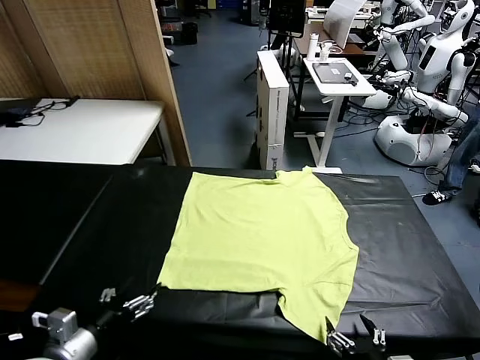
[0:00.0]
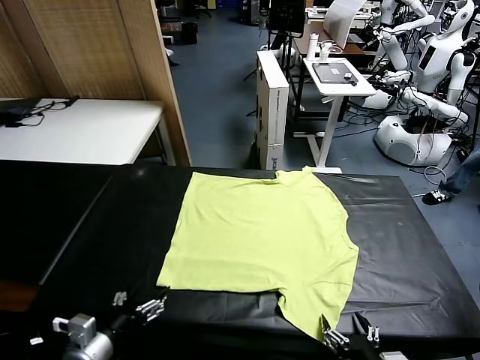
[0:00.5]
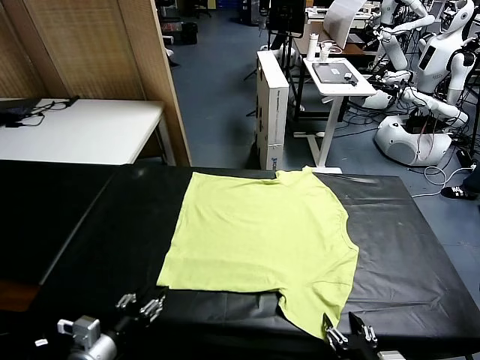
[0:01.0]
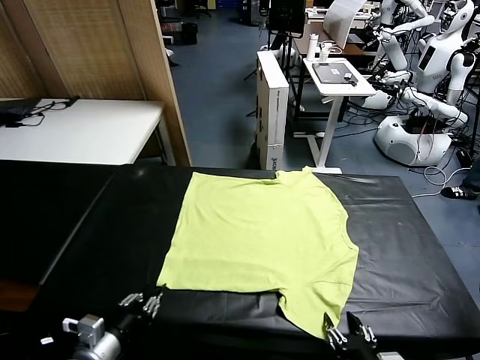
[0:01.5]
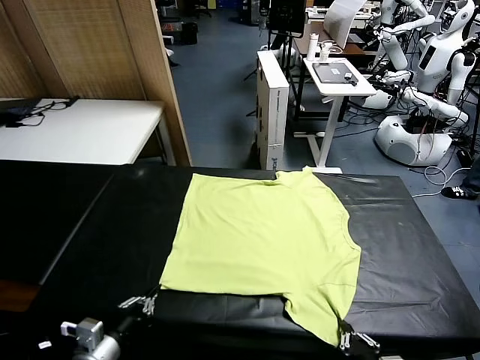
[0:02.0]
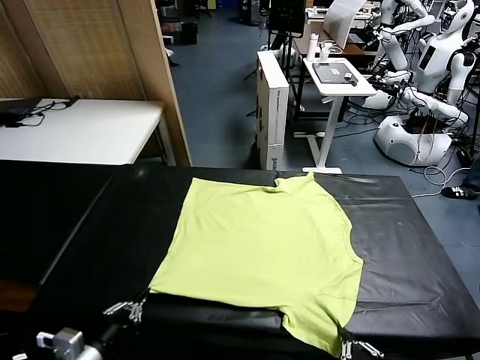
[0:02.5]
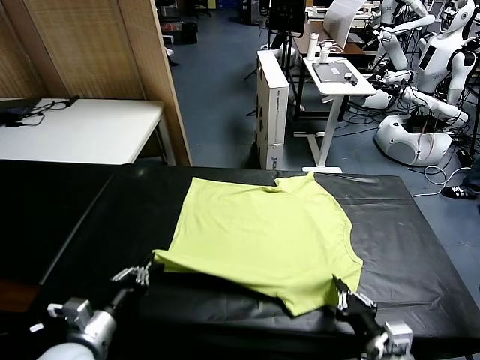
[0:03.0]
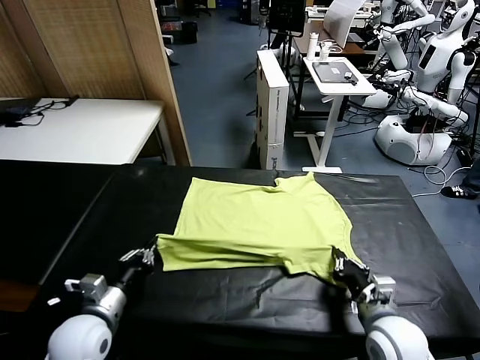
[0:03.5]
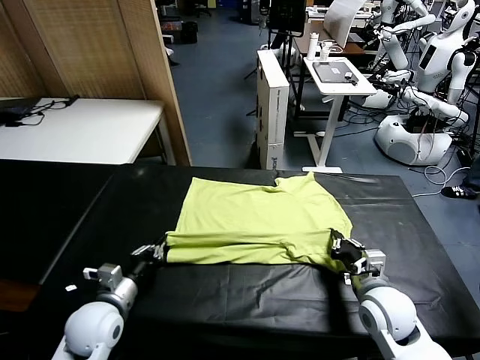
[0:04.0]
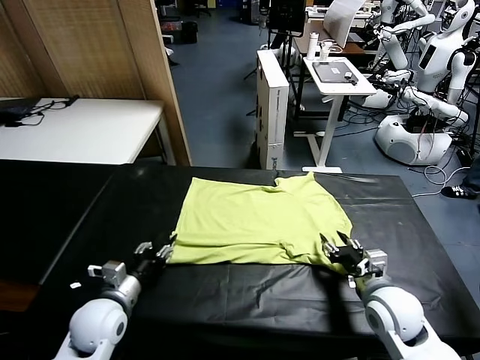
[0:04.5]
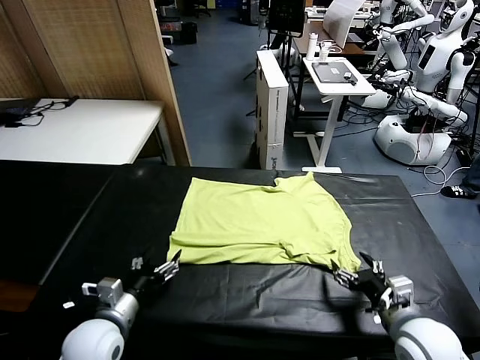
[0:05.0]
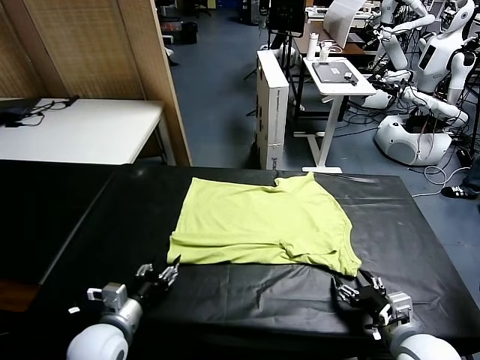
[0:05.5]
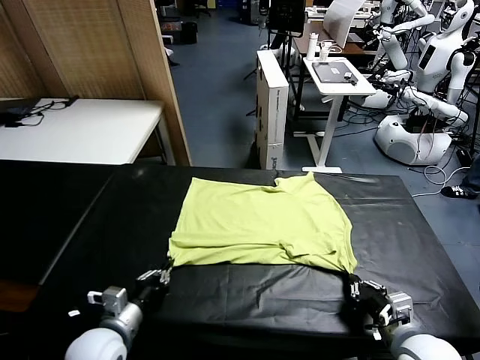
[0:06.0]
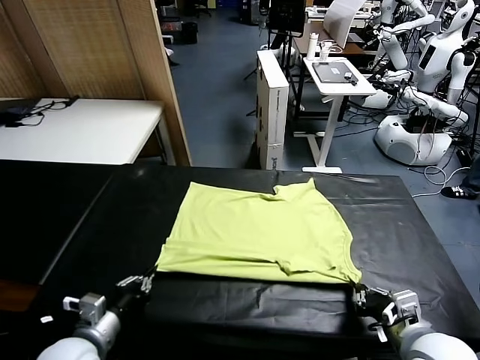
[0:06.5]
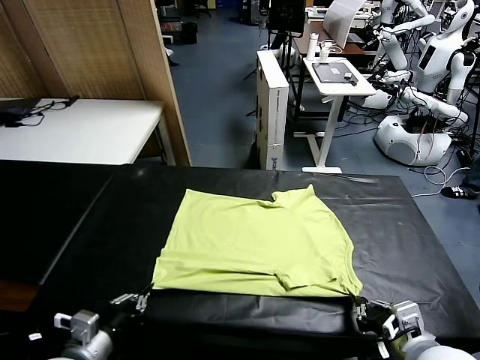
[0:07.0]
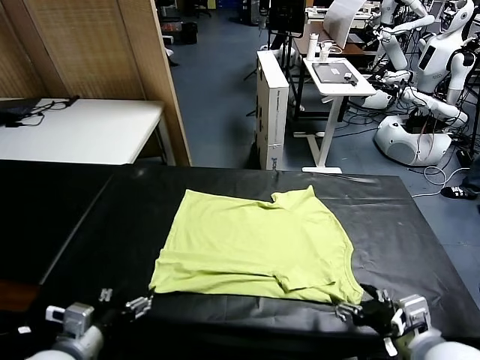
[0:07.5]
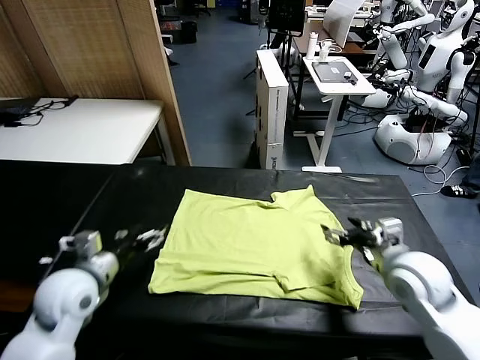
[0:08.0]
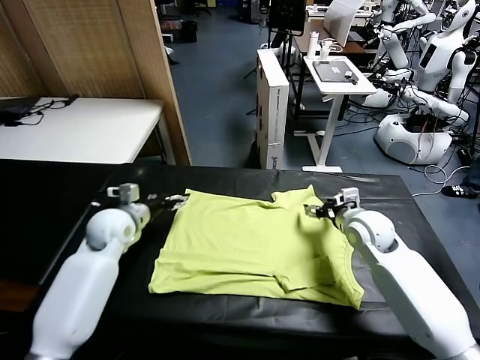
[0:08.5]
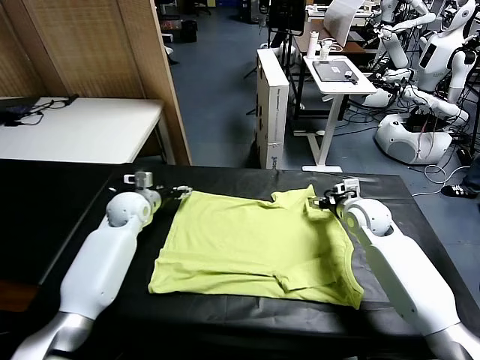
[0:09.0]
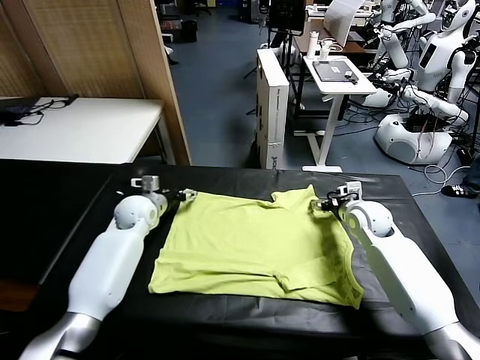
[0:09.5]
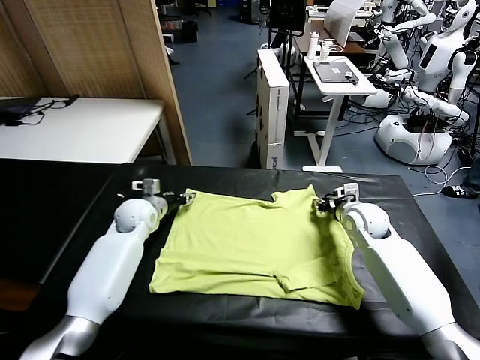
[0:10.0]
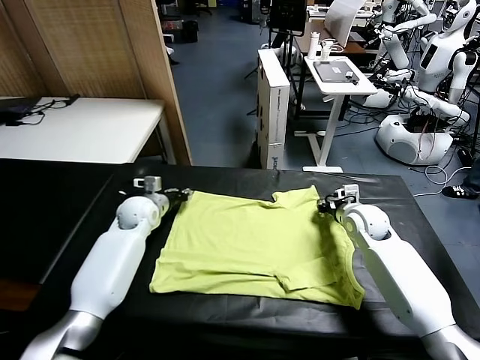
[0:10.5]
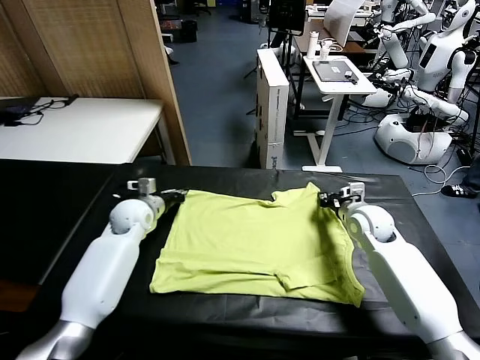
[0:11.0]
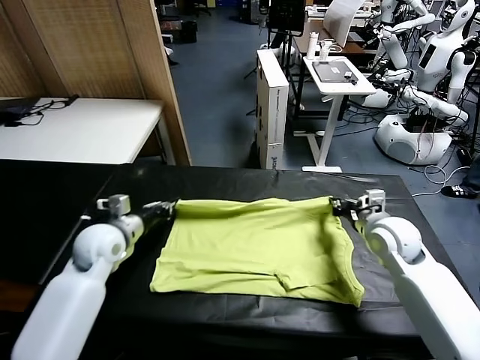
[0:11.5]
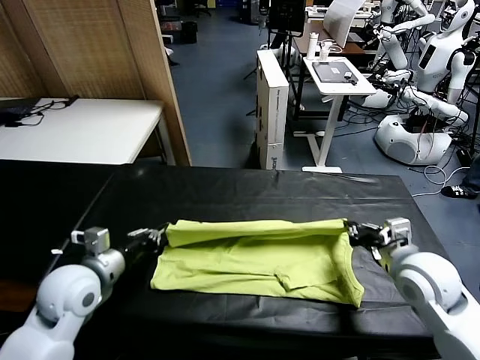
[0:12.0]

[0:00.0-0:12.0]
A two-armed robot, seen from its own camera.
Task of the whole recording: fold and organize the clothes.
Step, 0:00.0 to 0:01.5: use both grippers simultaneously to clamp the lower edge of the clothing fabric.
Step, 0:02.0 to 0:04.5: use both grippers to drag the lower edge of the fabric forward and fold it over the upper edge.
Step, 0:05.0 to 0:07.0: Drag the clothes downward with both gripper.
Step, 0:08.0 to 0:10.5: use both grippers simultaneously to clamp the upper edge of the clothing fabric.
0:02.0 to 0:04.0: The left gripper goes roughly 15 cm forward, while the right gripper moves forward, some 20 cm, and opens.
0:04.0 to 0:06.0: The left gripper travels backward by about 5 cm, and opens, then closes again. The right gripper goes roughly 10 cm backward and upward, and closes.
0:06.0 to 0:08.0: The left gripper shifts about 15 cm forward and upward, and opens, while the right gripper travels forward by about 25 cm, and opens.
0:08.0 to 0:10.0: The left gripper heads forward, covering about 20 cm. The right gripper shifts about 5 cm forward, and closes.
0:10.0 to 0:12.0: Both grippers travel together backward, roughly 25 cm. The left gripper closes its fingers.

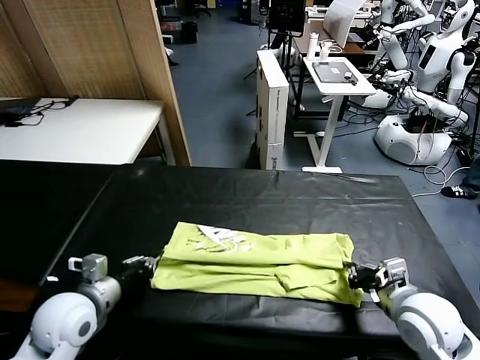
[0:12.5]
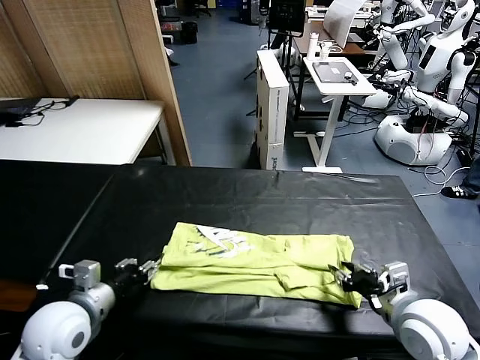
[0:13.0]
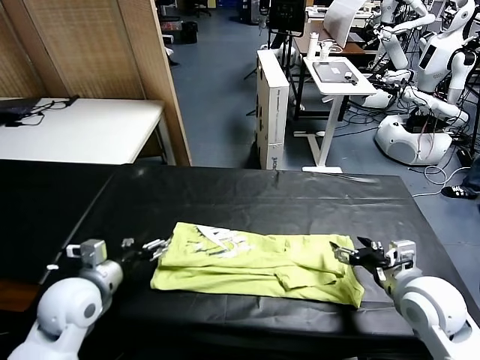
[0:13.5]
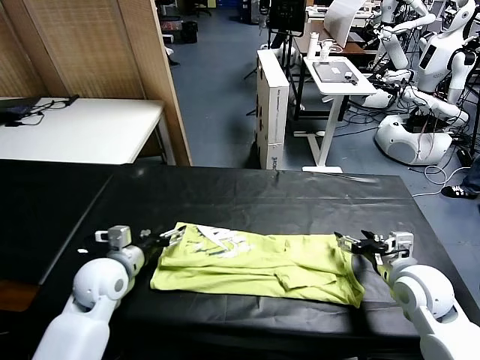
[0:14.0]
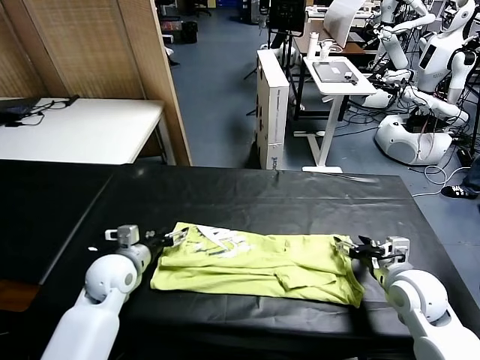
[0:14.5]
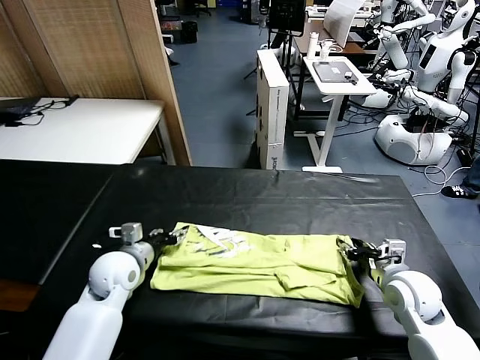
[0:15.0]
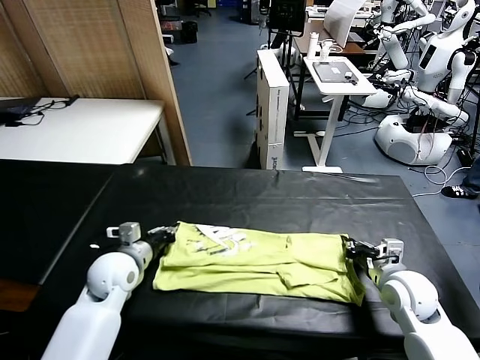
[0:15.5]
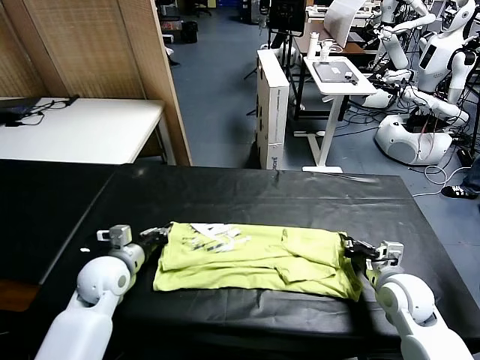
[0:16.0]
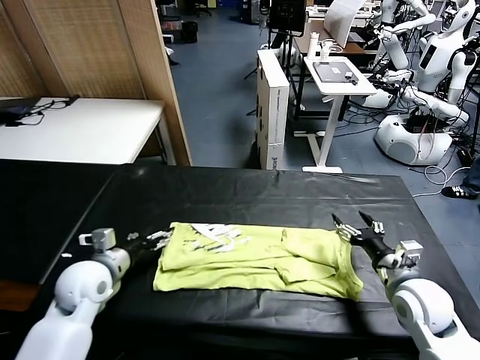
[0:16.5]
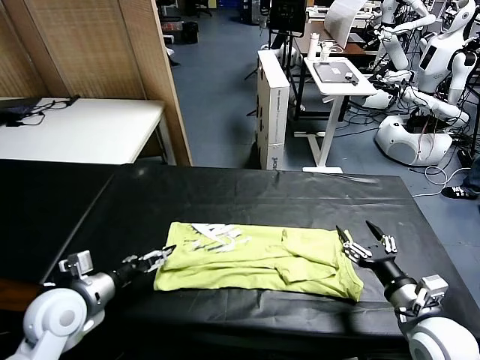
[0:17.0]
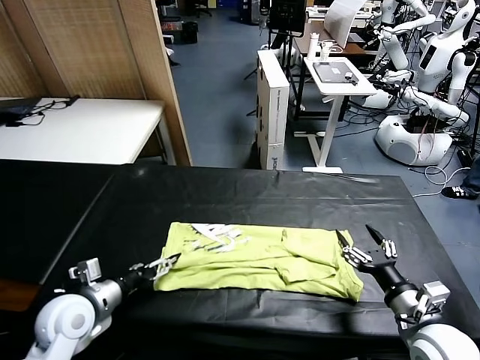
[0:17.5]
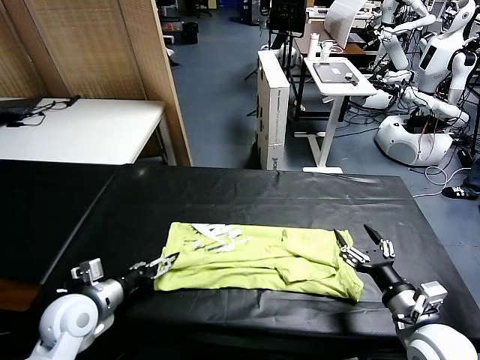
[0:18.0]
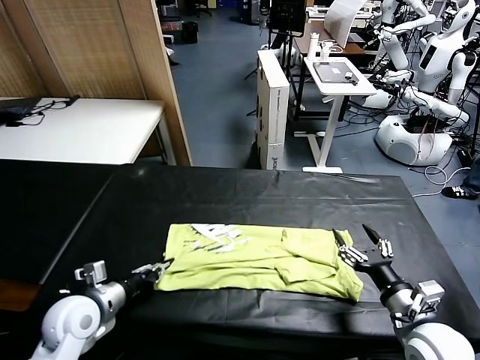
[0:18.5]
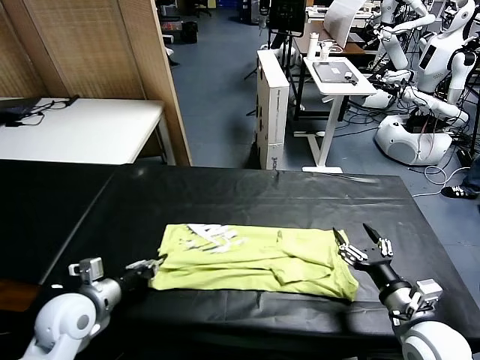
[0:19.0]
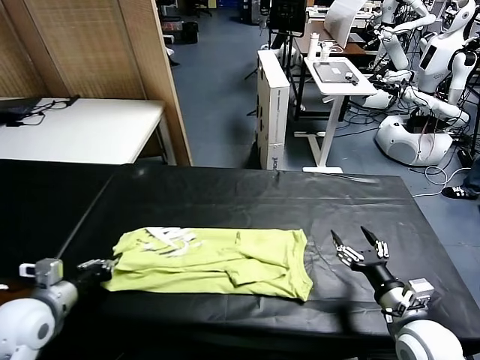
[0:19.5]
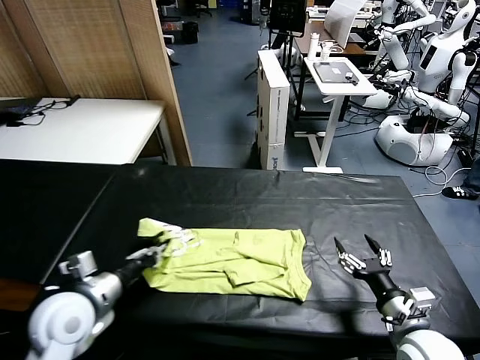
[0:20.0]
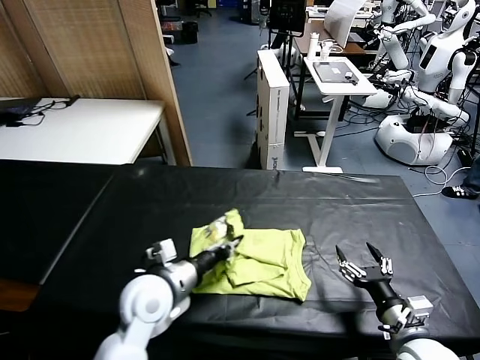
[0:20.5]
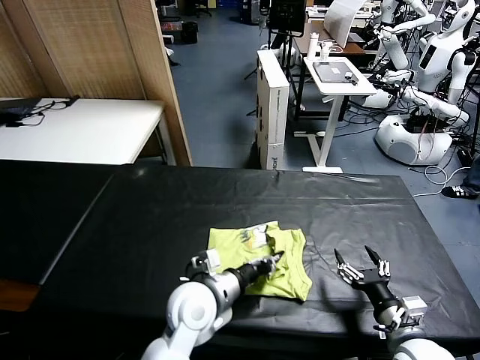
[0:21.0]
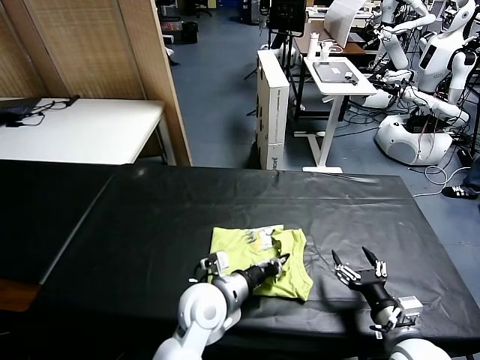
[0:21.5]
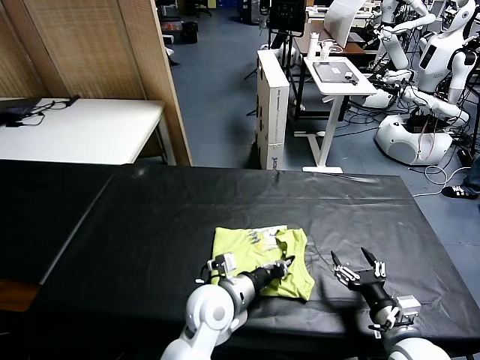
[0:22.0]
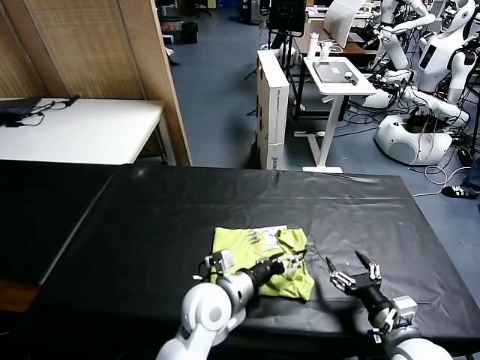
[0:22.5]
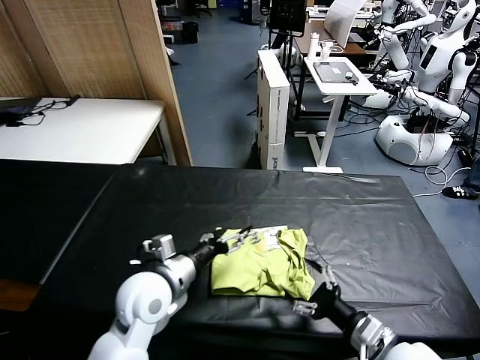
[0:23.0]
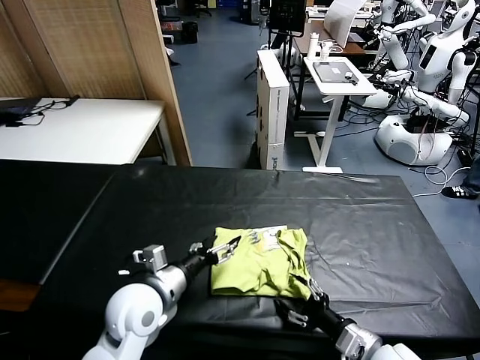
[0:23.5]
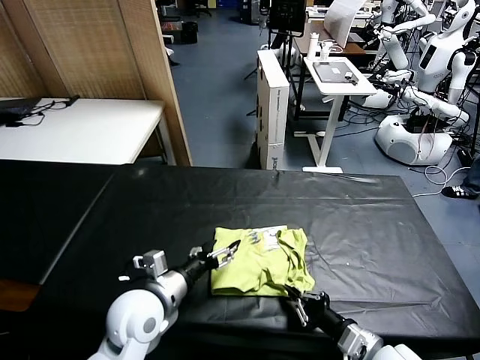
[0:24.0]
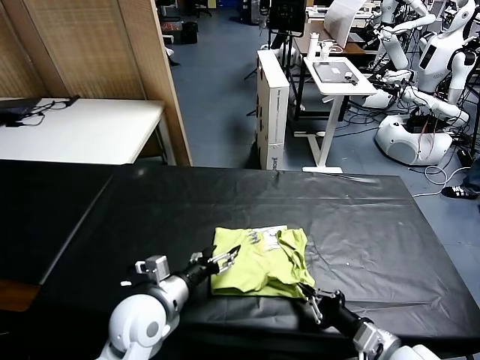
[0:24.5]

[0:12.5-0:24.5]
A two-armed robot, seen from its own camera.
Task of the whole recording: fold and organize the clothes.
Step, 0:13.5 to 0:18.5: use the left gripper to clamp the left edge of the fabric.
Step, 0:19.0 to 0:22.5: use the left gripper to drag the left edge of the fabric to the left and folds it over the right edge.
0:12.5 to 0:14.5: Both grippers move forward, approximately 10 cm. The left gripper opens up; the right gripper opens up.
0:14.5 to 0:16.5: The right gripper is displaced backward by roughly 5 cm, and closes, then opens again. The left gripper ends up some 5 cm from where it was, and closes and opens again.
0:16.5 to 0:18.5: The left gripper ends up about 5 cm from where it was, and closes up.
0:18.5 to 0:20.5: The left gripper heads to the right, covering approximately 15 cm.
0:20.5 to 0:22.5: The left gripper goes approximately 10 cm to the right, and opens its fingers.
0:22.5 to 0:24.5: The left gripper heads to the left, covering some 10 cm. Meanwhile the right gripper closes.

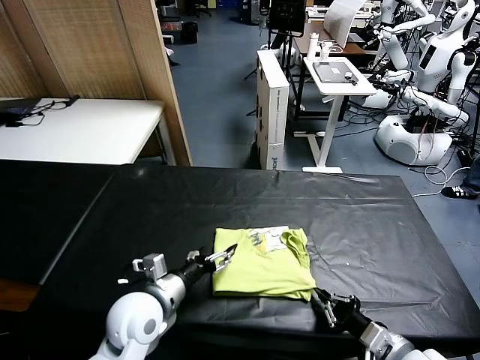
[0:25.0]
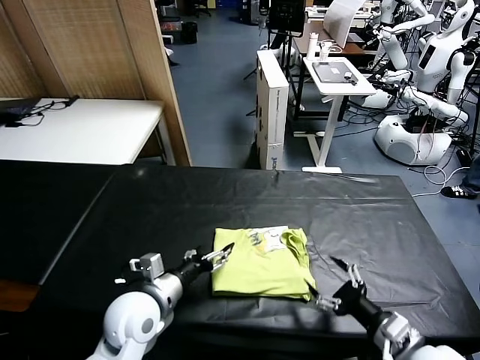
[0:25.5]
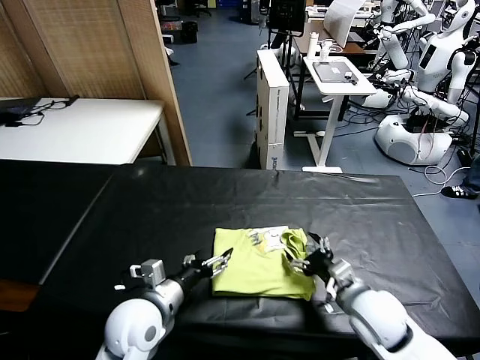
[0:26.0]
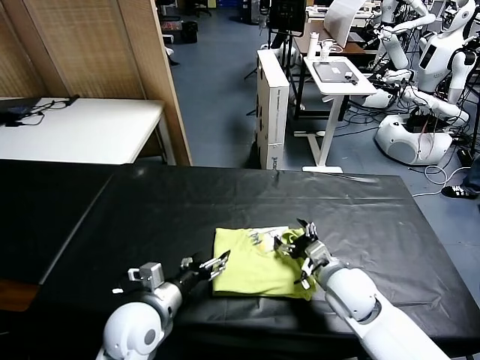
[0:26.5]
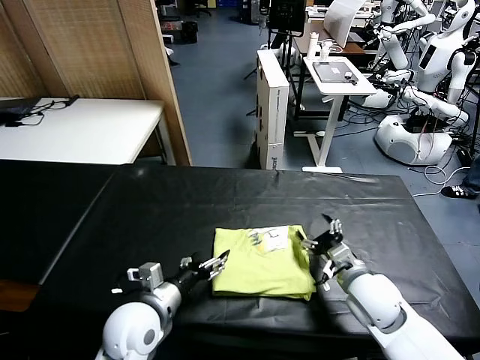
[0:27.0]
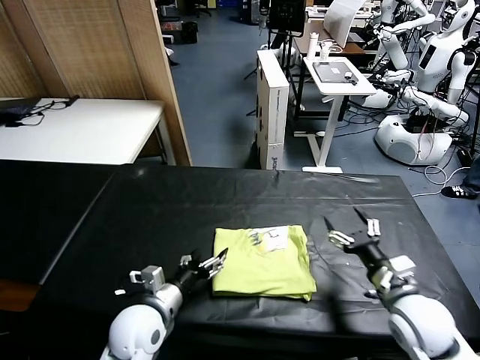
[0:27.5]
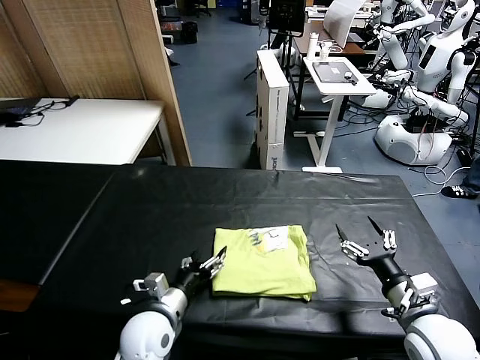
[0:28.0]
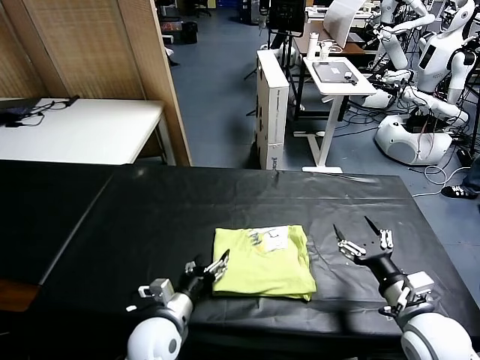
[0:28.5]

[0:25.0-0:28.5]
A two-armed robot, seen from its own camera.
Task of the whole recording: fold and organize the clothes.
0:25.0 to 0:27.0: The right gripper heads forward, covering some 15 cm, and opens.
0:27.0 to 0:28.5: The left gripper shifts about 5 cm downward, while the right gripper is displaced backward and to the right by roughly 10 cm.
